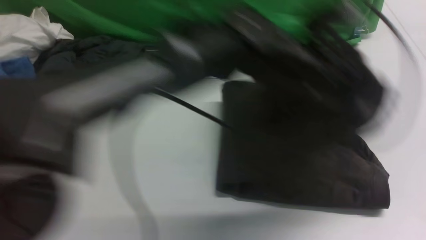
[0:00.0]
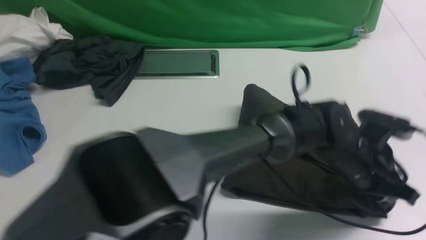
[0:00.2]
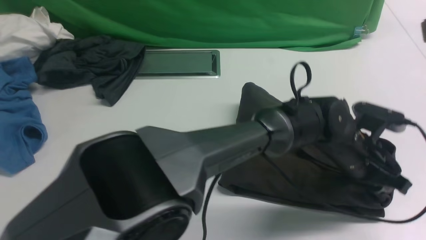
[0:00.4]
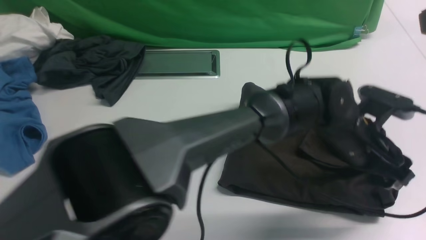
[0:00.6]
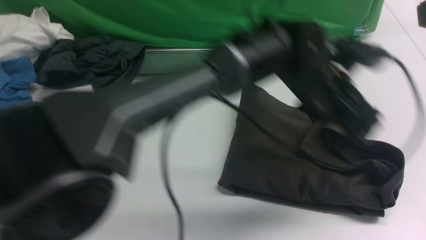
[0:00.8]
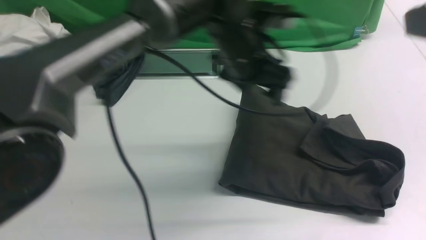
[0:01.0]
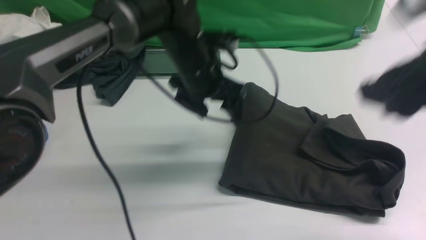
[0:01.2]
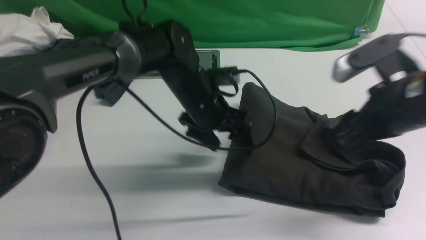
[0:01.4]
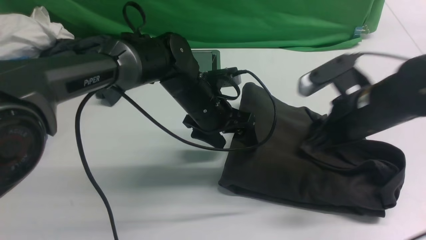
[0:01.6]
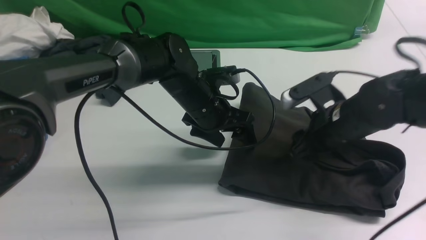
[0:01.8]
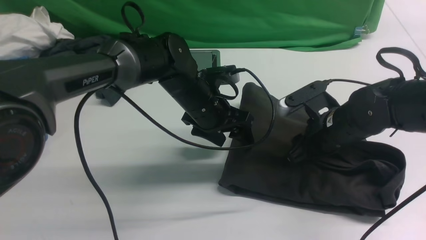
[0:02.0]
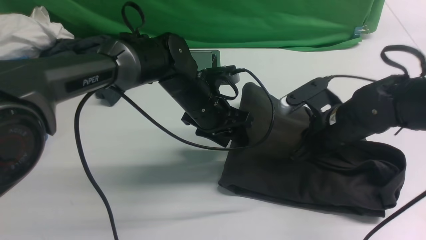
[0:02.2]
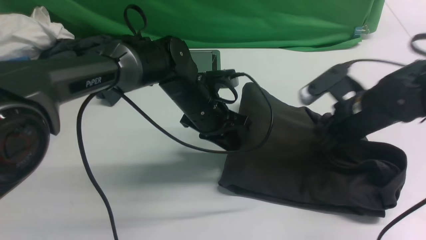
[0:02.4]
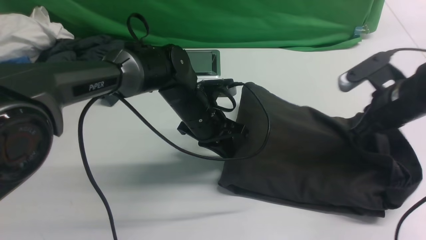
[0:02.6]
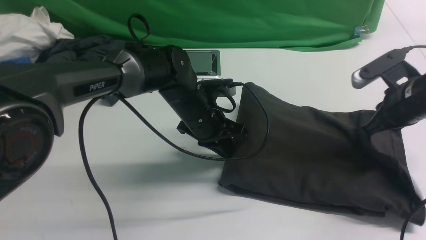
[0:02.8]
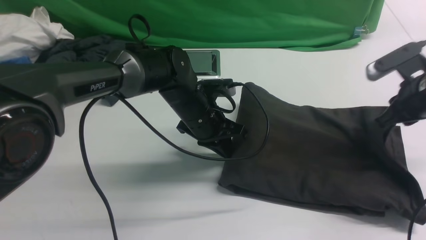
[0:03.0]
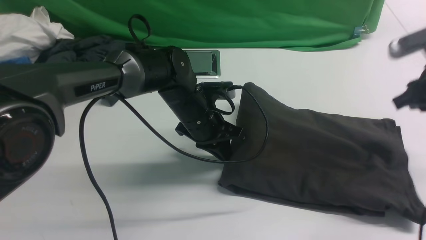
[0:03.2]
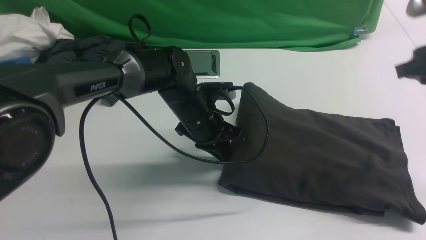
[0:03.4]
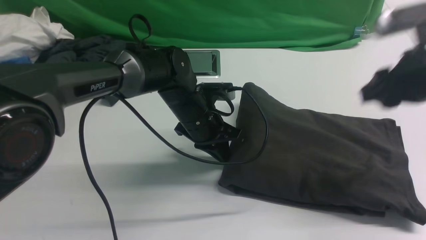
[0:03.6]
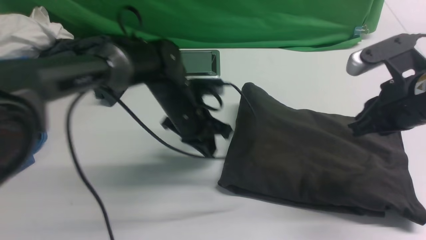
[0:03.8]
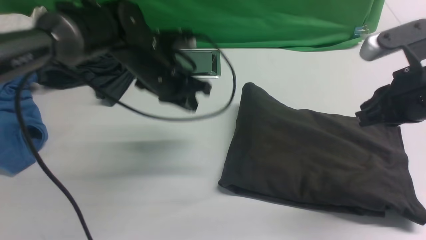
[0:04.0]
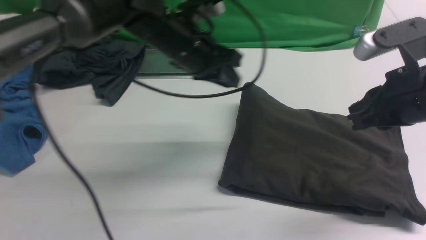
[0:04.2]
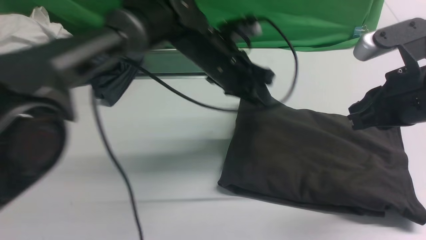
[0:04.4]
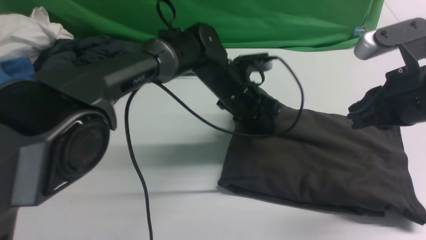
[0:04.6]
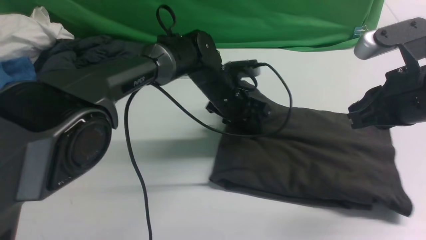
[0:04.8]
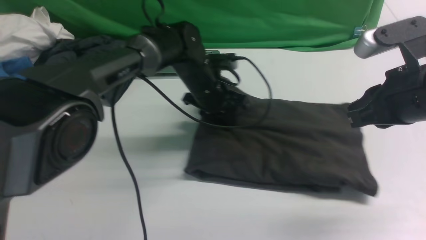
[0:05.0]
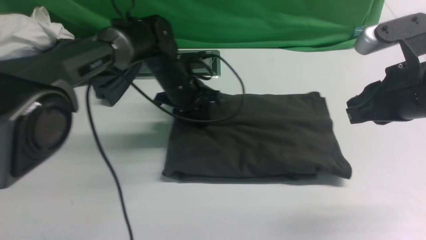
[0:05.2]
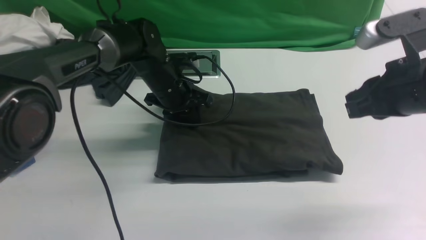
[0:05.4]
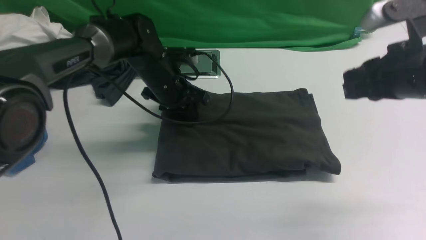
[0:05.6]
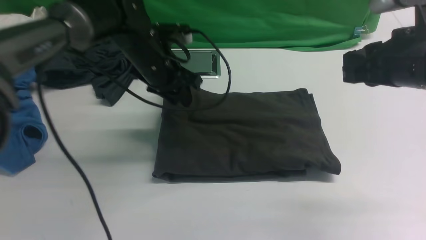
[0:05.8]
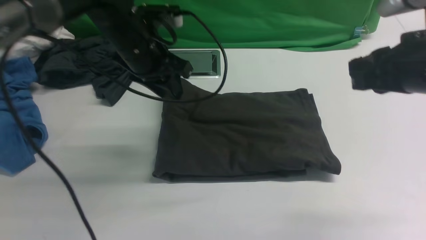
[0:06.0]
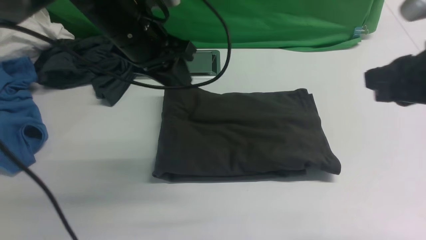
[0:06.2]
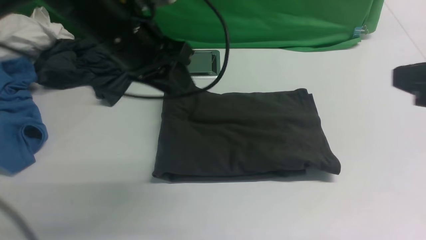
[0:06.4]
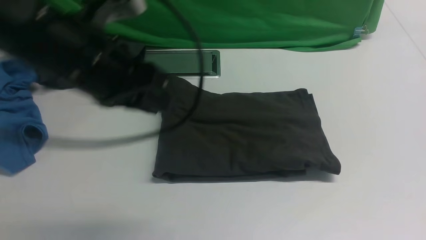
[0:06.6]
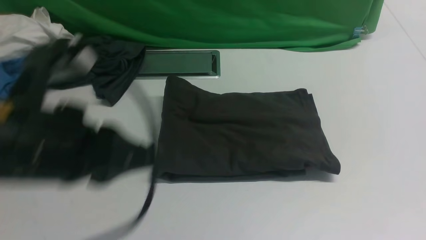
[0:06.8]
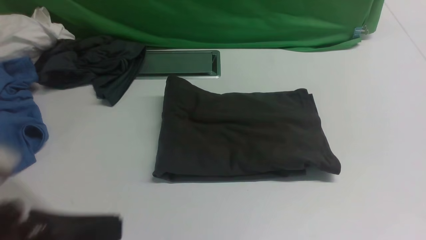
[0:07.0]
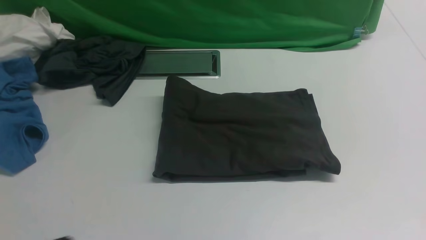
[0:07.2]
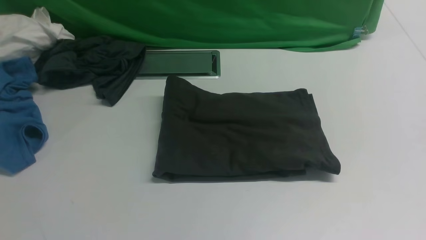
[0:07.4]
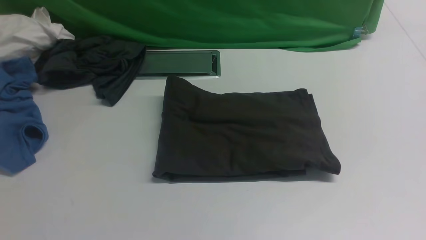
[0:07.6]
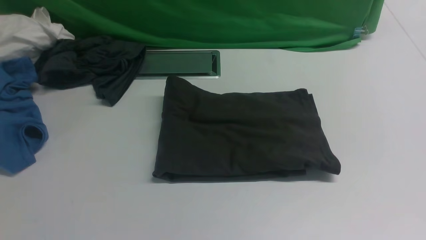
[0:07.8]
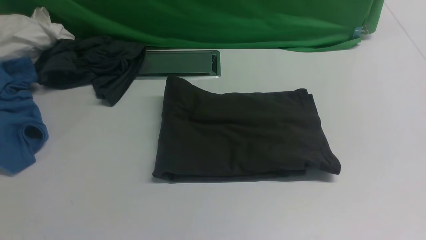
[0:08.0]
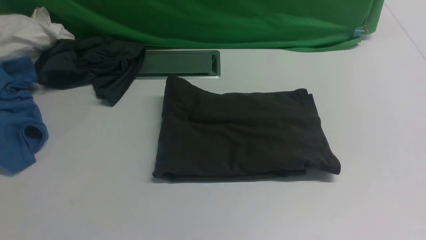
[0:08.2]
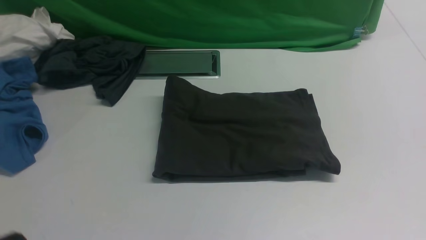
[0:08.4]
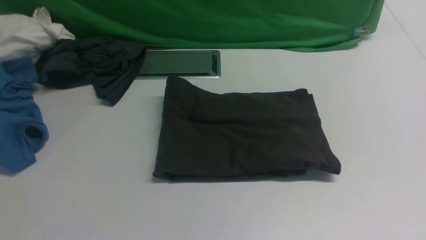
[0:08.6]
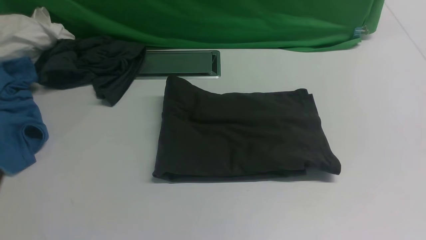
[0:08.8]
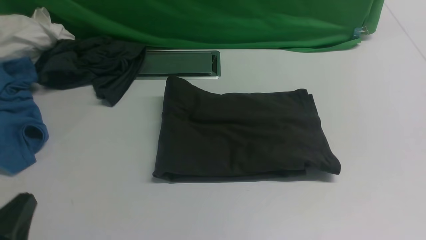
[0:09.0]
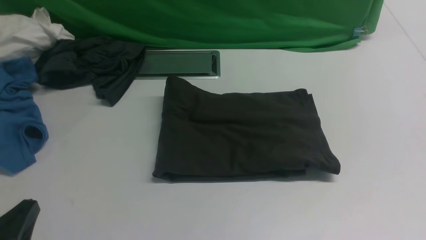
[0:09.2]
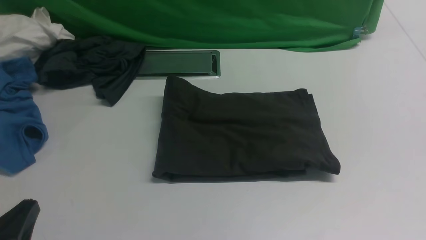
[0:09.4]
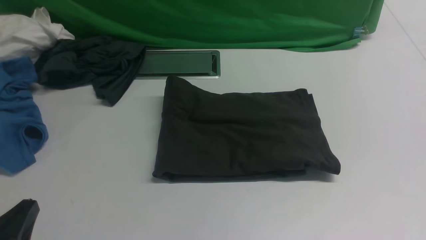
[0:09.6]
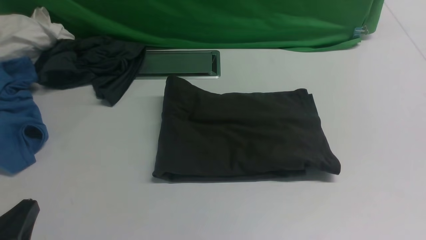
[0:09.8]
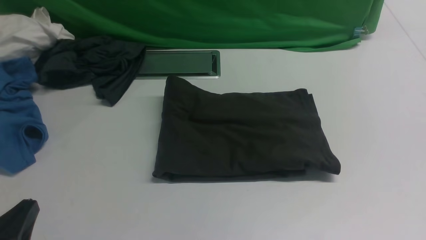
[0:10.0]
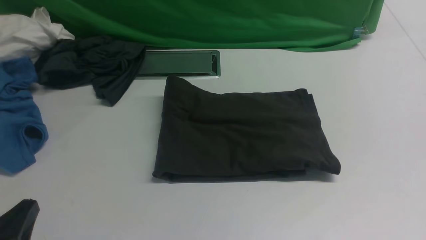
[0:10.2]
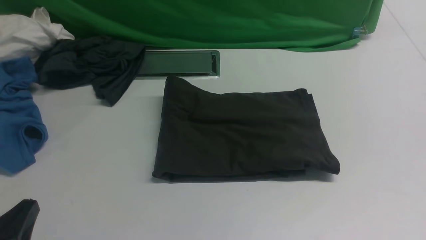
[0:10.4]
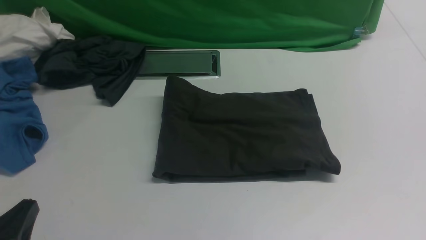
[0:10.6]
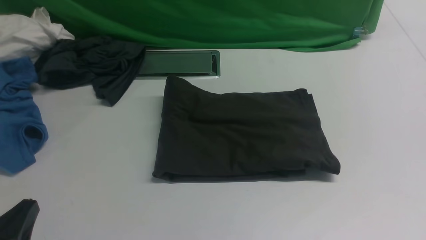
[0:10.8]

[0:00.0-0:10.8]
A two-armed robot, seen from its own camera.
0.0 to 1.6 s: The right gripper travels downward and forward by about 25 cm, and opens up; the left gripper goes about 15 cm to the left and downward, and opens up.
1.6 to 3.0 s: The left gripper closes its fingers. Meanwhile the right gripper travels to the right by roughly 10 cm, and closes its fingers.
3.0 to 4.6 s: The right gripper heads backward, to the left and upward, covering roughly 15 cm. The left gripper travels upward and back again, approximately 10 cm each way.
4.6 to 6.2 s: The right gripper changes place by about 5 cm. Meanwhile the left gripper moves upward, to the left and backward, some 20 cm.
6.2 to 7.8 s: The right gripper moves backward, approximately 20 cm, while the left gripper goes roughly 35 cm backward, and closes its fingers.
7.8 to 9.2 s: The left gripper heads downward and forward, covering some 15 cm.

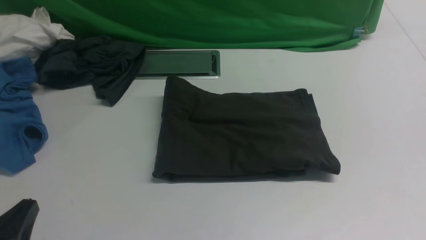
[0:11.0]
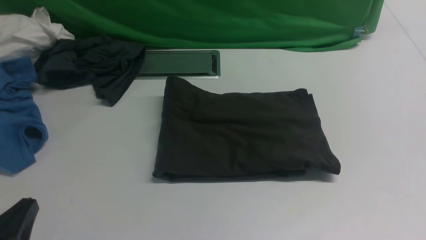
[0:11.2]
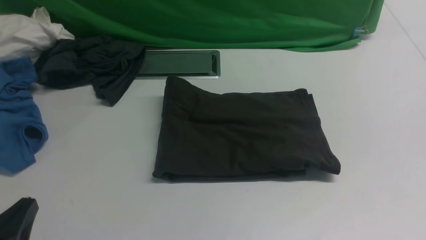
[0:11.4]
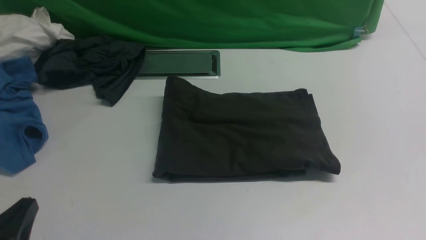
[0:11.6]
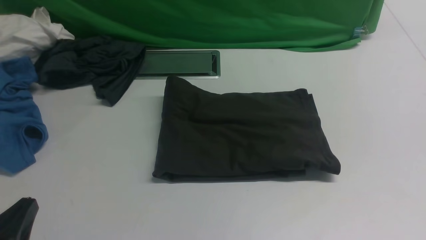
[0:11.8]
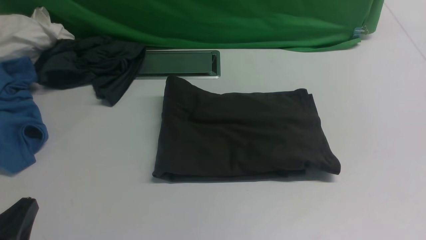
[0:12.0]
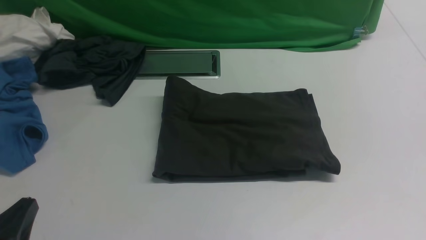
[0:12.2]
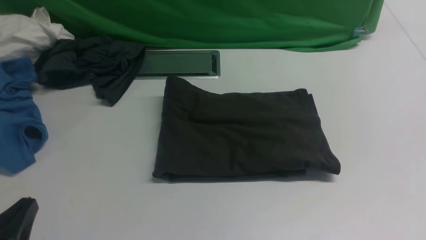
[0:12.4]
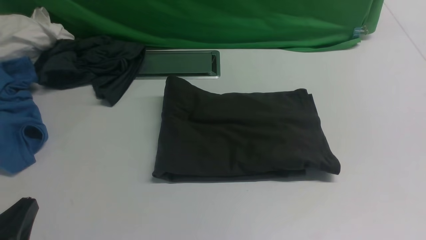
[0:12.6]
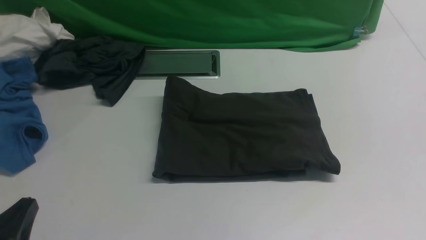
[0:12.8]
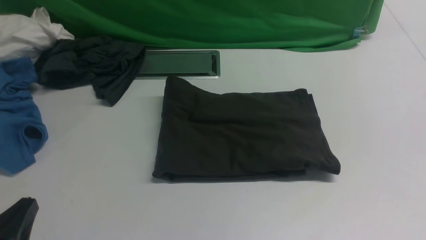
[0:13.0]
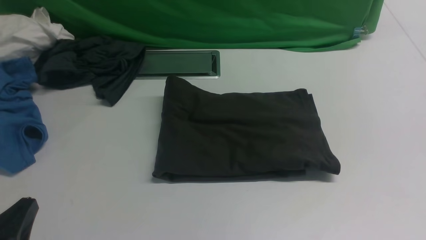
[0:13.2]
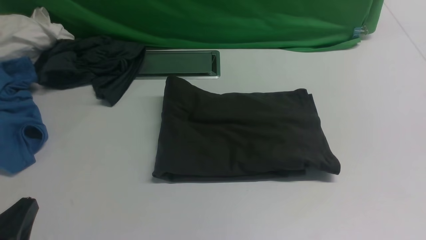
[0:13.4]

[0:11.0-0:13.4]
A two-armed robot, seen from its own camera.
11.0 to 13.4 s: Both grippers stay put.

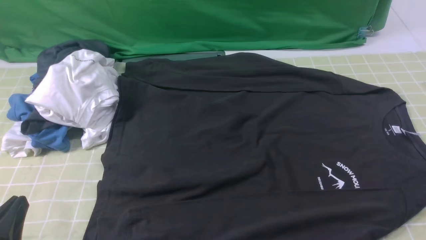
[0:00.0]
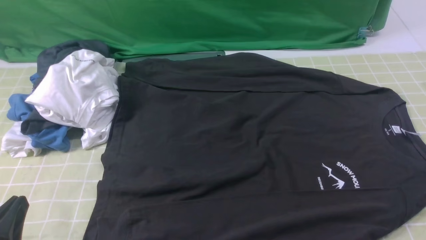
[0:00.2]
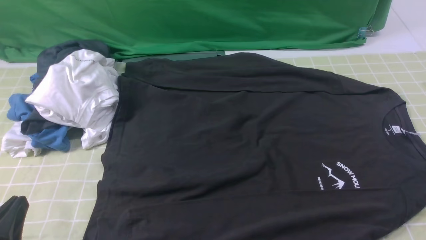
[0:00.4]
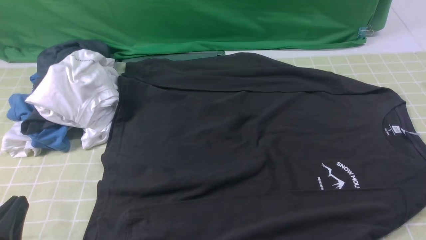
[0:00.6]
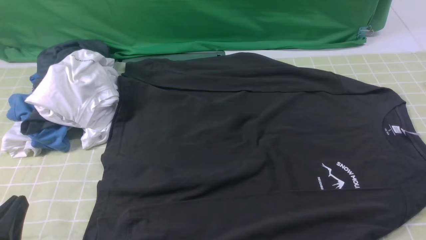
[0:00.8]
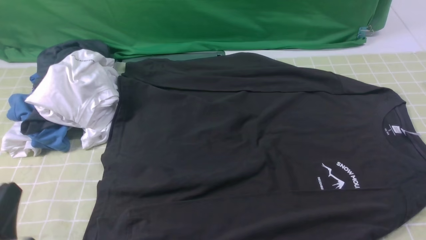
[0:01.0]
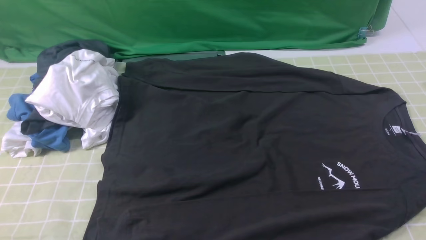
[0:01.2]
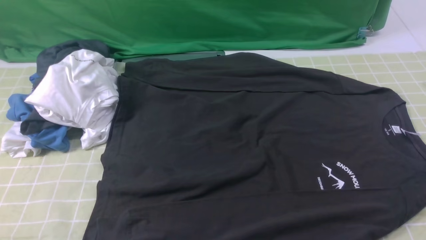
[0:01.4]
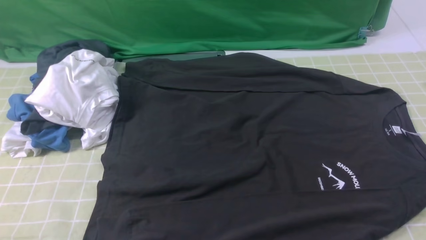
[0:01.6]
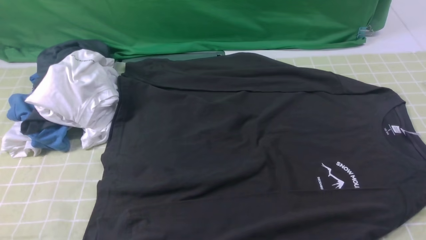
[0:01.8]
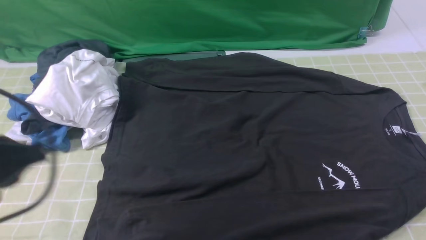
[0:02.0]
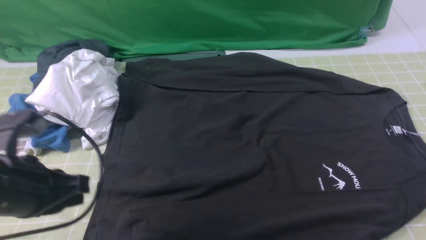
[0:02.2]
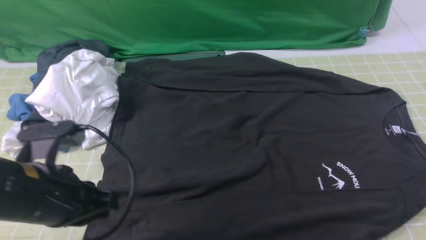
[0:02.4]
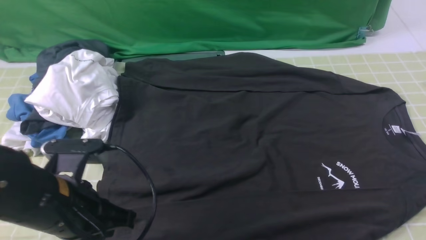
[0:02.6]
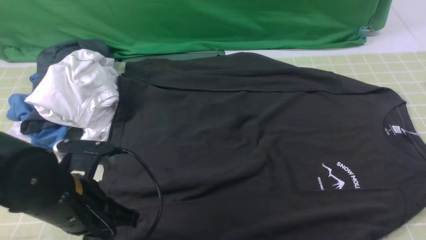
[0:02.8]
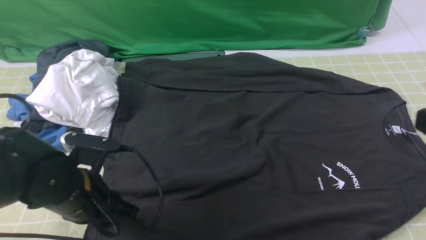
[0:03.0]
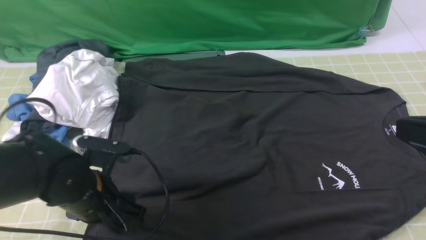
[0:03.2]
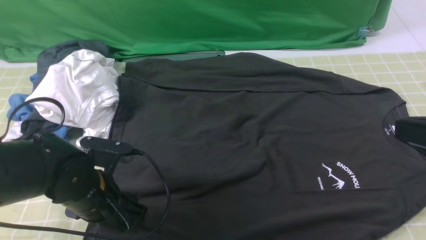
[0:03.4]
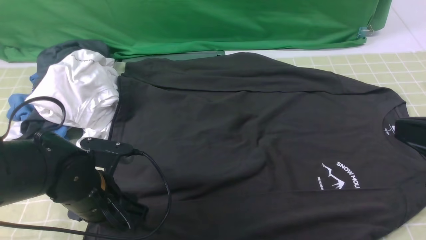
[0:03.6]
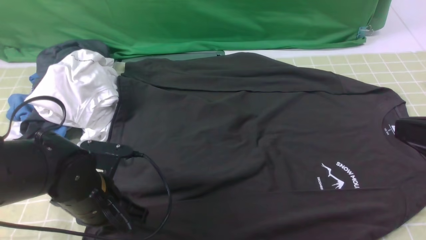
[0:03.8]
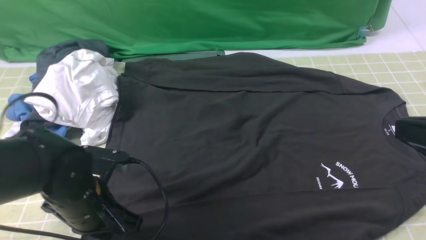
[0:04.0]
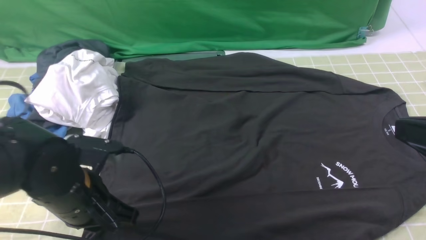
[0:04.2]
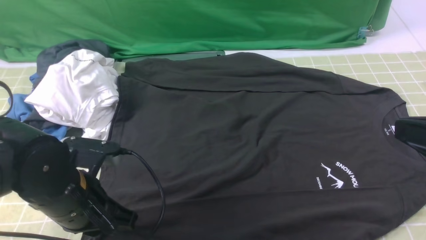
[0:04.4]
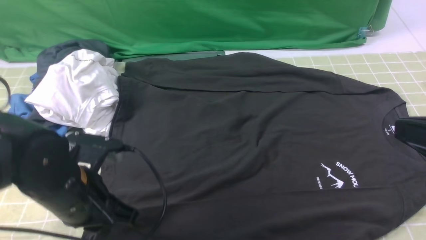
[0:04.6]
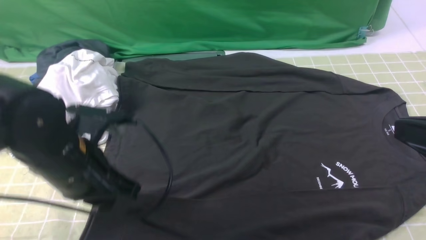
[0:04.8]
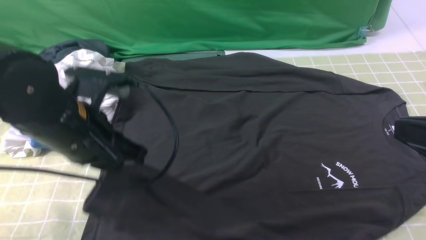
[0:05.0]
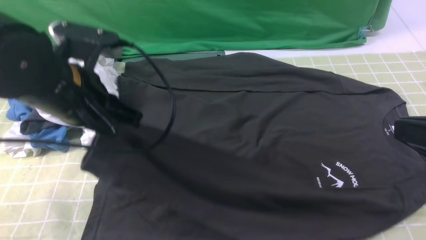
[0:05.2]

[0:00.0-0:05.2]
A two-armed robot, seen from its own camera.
Step, 0.0 to 4.0 s: use the left arm to clamp the cuff closest to it.
0.0 to 1.8 s: The left gripper travels upward by approximately 15 cm.
1.8 to 3.4 s: The right gripper heads upward, to the left and forward, covering some 15 cm, and closes up; the left gripper goes roughly 20 cm downward, forward and to the right, and opens.
3.4 to 5.2 s: The left gripper goes some 15 cm upward, and closes its fingers.
